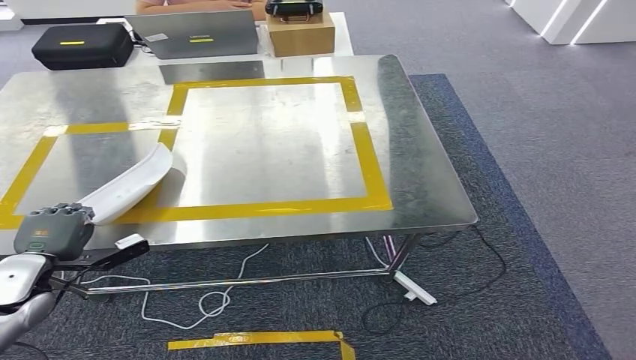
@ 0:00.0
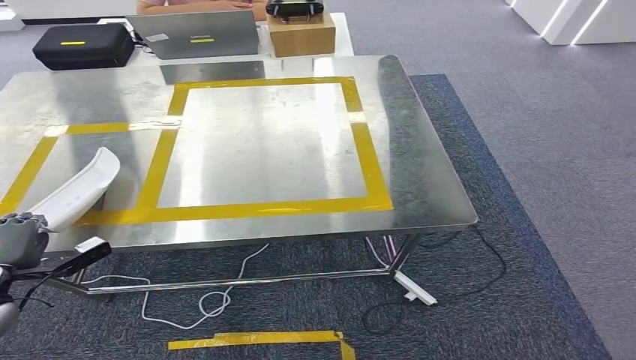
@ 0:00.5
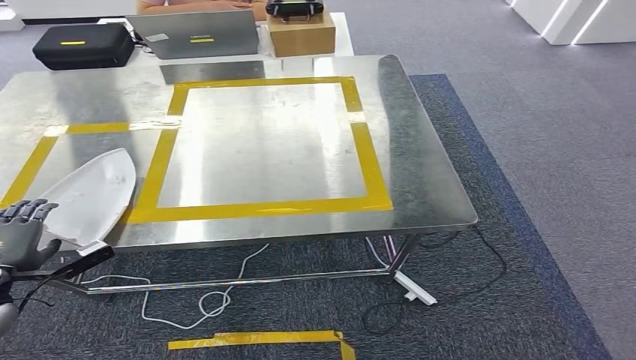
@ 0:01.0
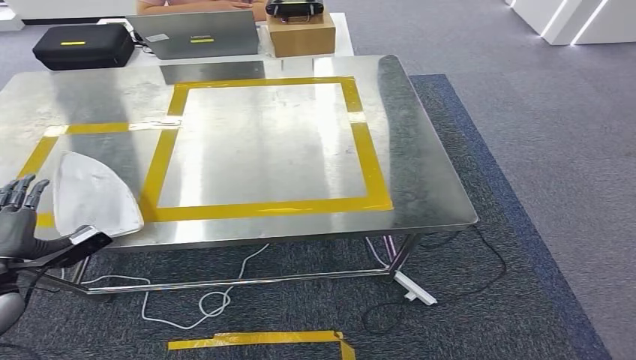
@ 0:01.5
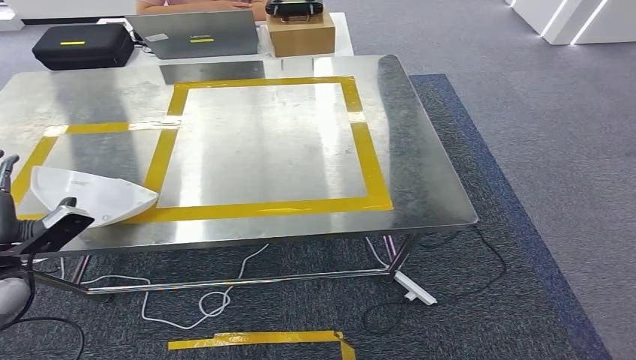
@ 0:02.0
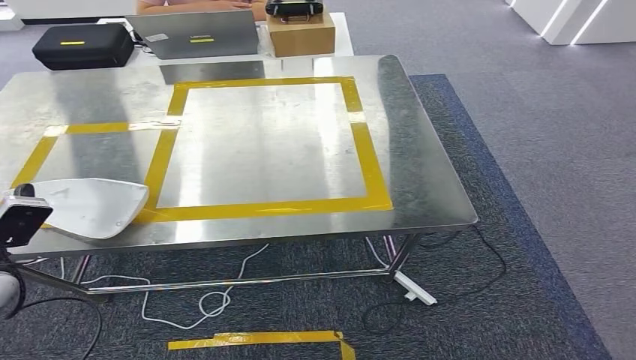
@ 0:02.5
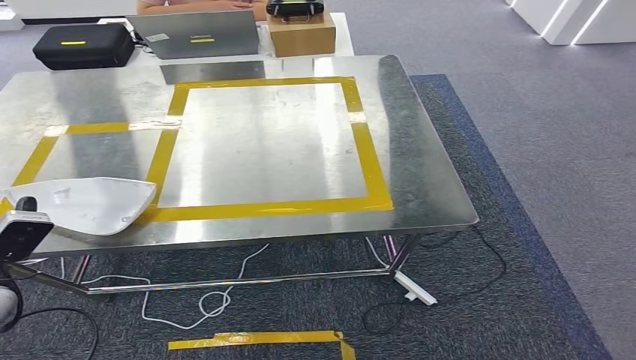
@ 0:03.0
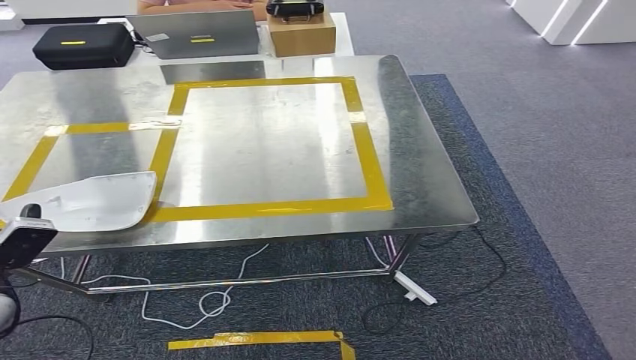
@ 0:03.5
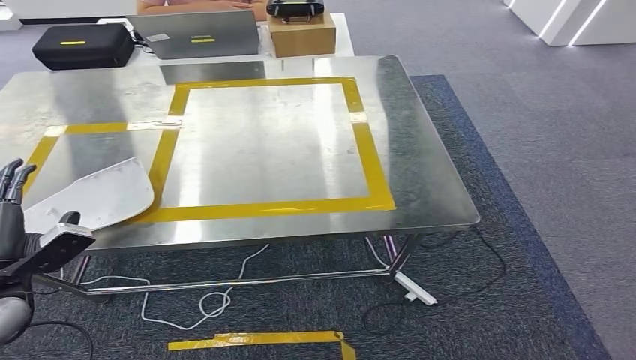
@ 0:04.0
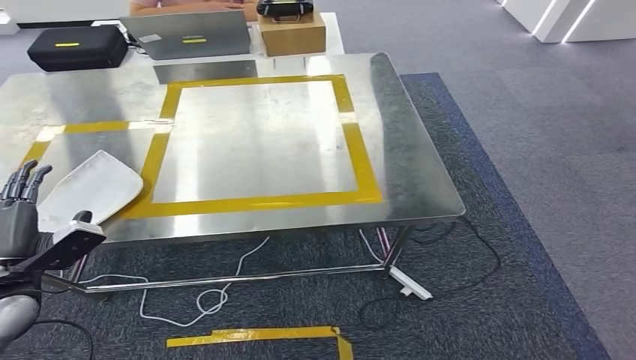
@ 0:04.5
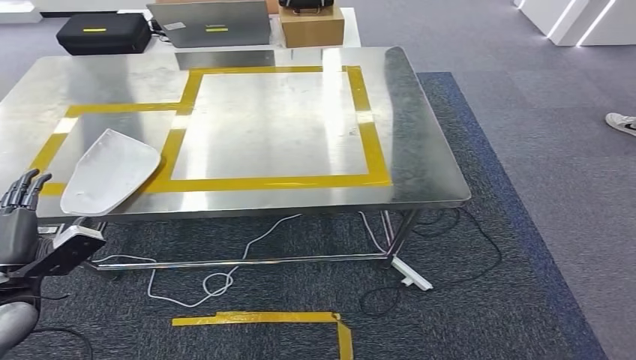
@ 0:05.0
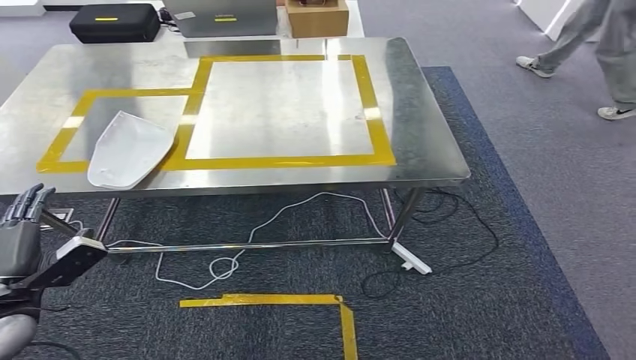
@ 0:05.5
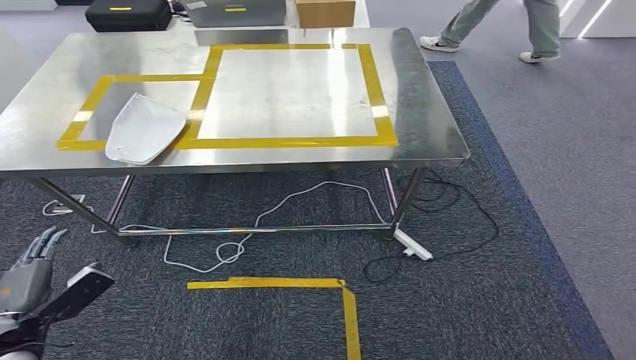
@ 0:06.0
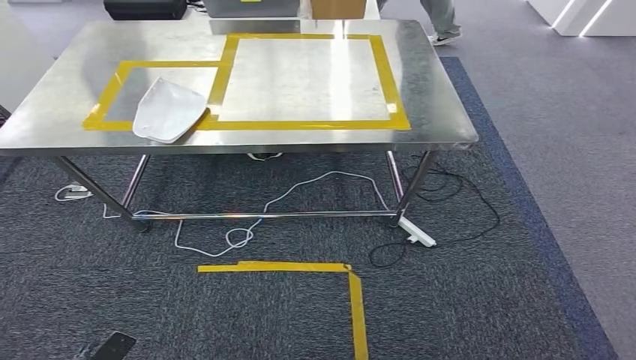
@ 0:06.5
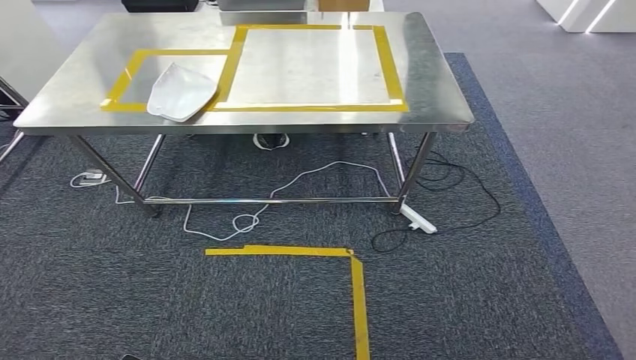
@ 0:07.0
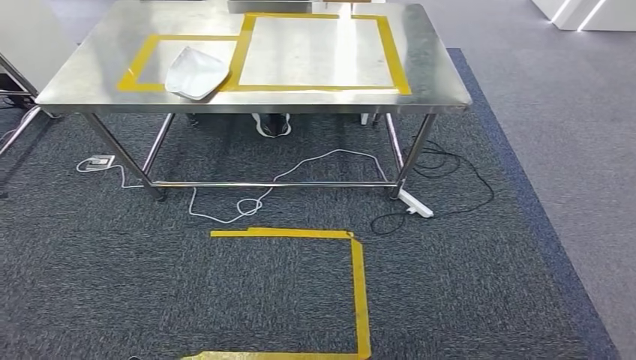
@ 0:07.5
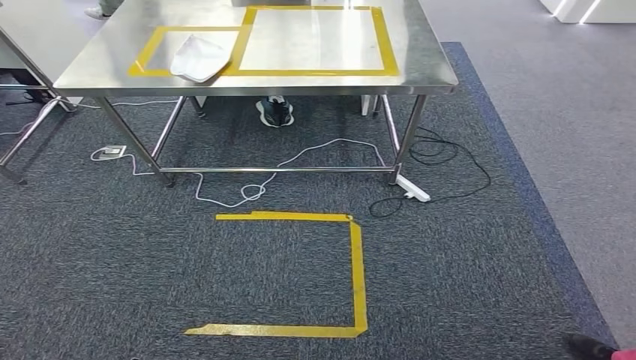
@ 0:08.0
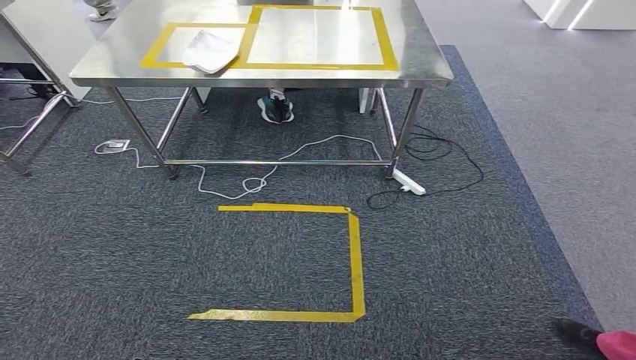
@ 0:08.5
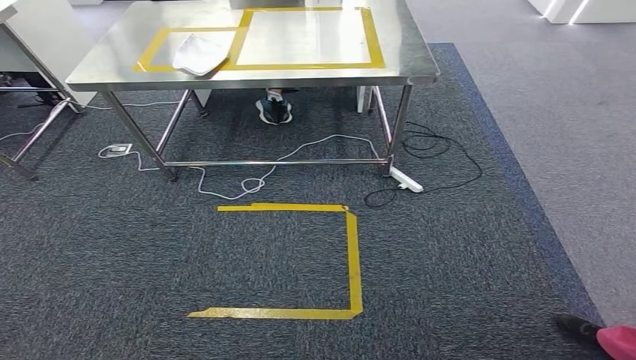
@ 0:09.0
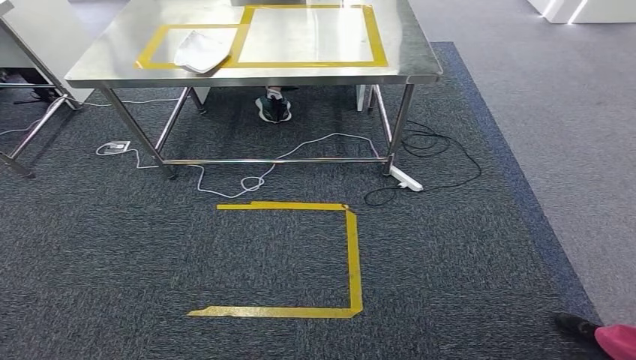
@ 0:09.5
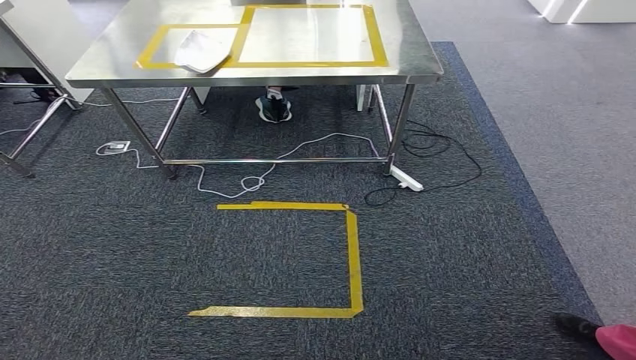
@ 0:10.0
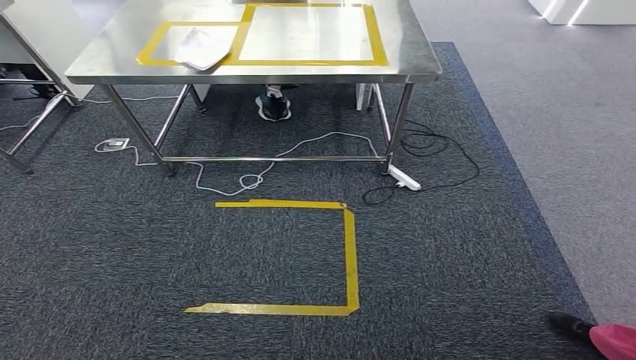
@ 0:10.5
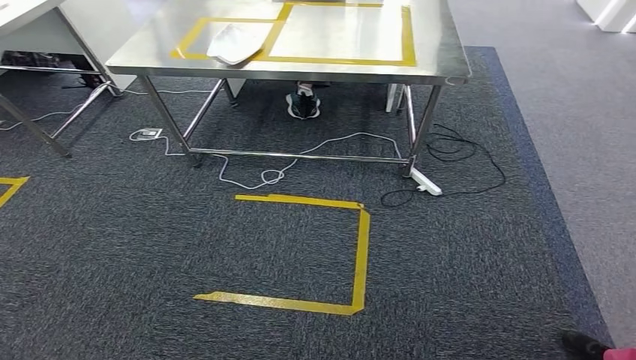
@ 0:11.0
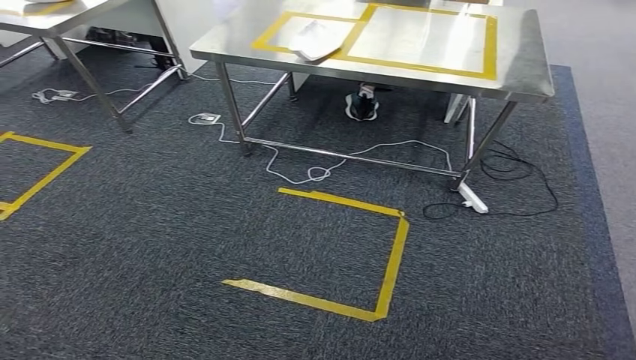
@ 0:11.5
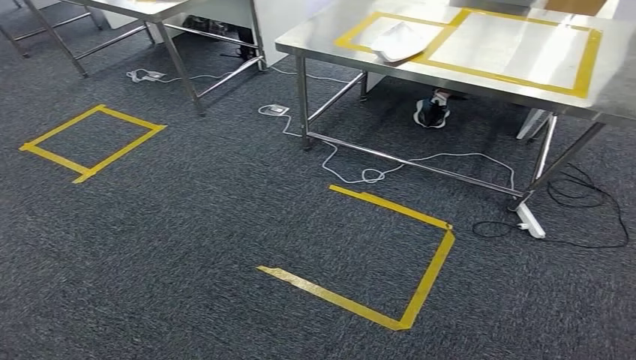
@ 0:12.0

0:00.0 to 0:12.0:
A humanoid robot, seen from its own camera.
Step, 0:00.0 to 0:02.5: Insert the small component into the corresponding slot on the workbench.
0:02.0 to 0:04.0: The hands stay close to where they were, moving slightly.

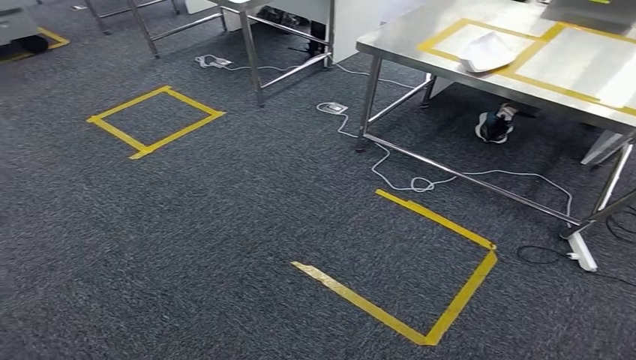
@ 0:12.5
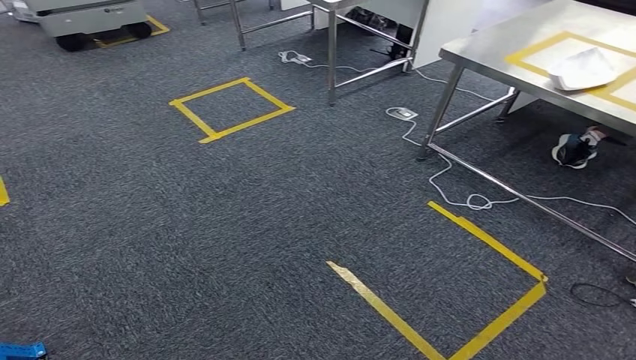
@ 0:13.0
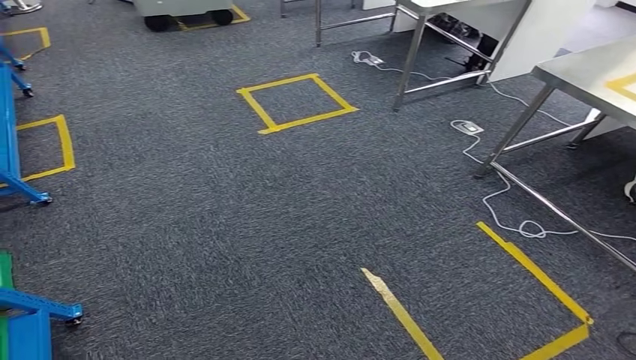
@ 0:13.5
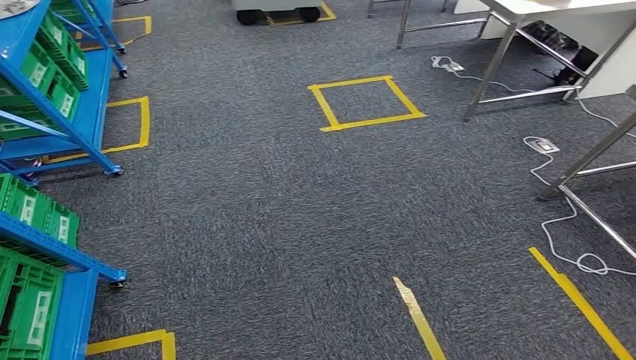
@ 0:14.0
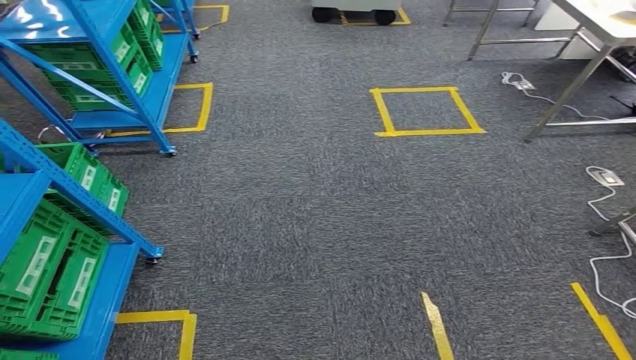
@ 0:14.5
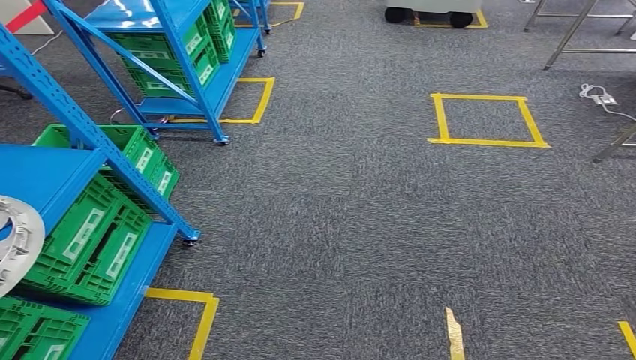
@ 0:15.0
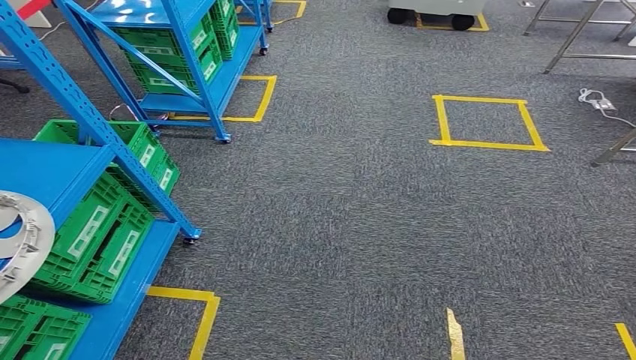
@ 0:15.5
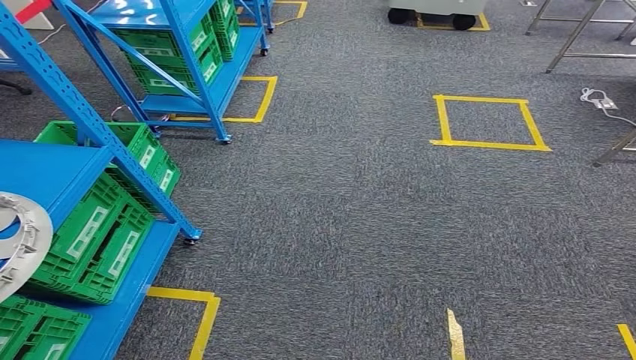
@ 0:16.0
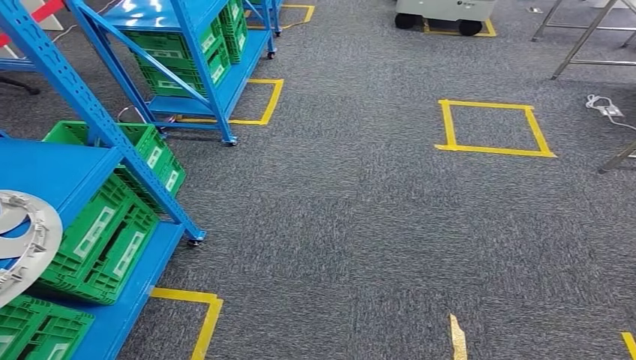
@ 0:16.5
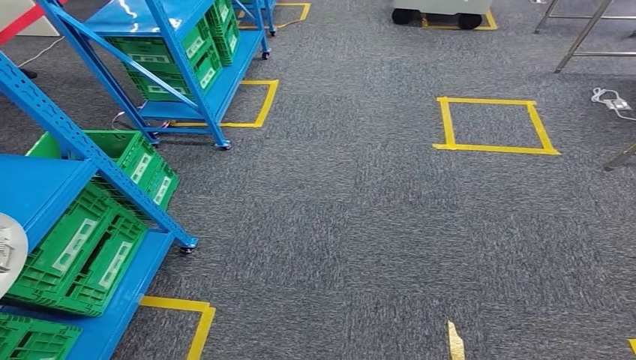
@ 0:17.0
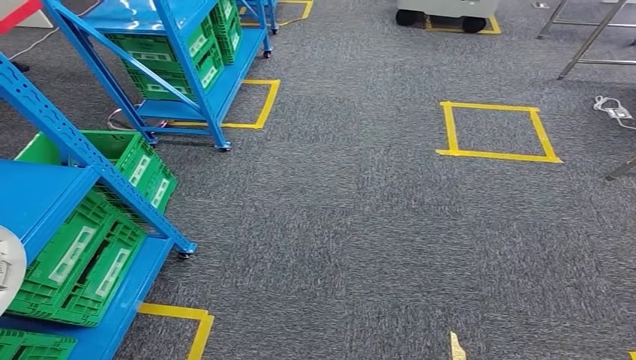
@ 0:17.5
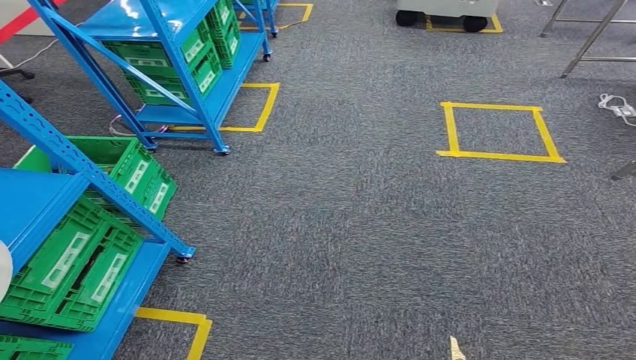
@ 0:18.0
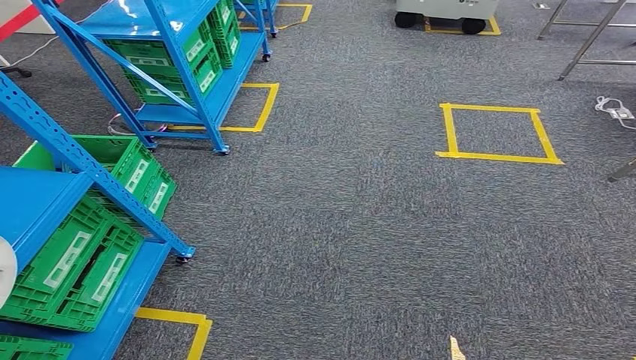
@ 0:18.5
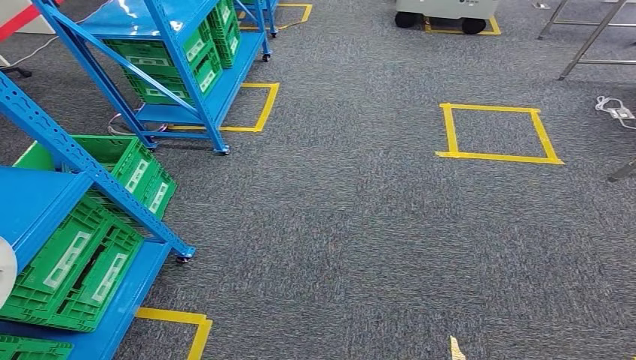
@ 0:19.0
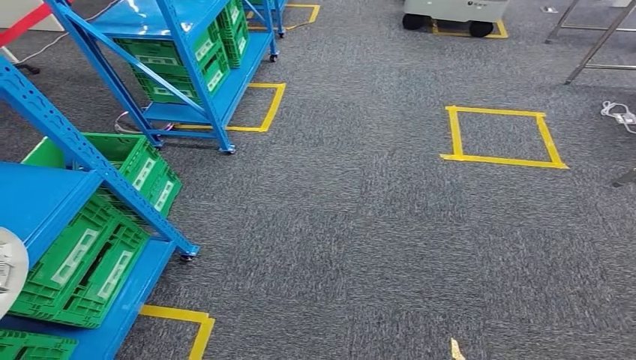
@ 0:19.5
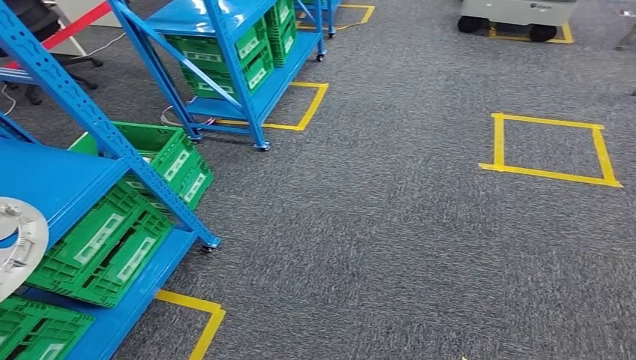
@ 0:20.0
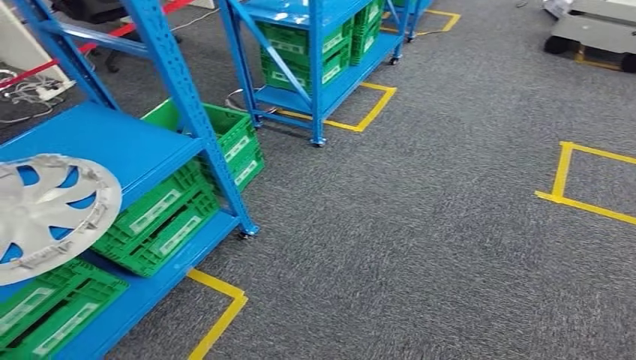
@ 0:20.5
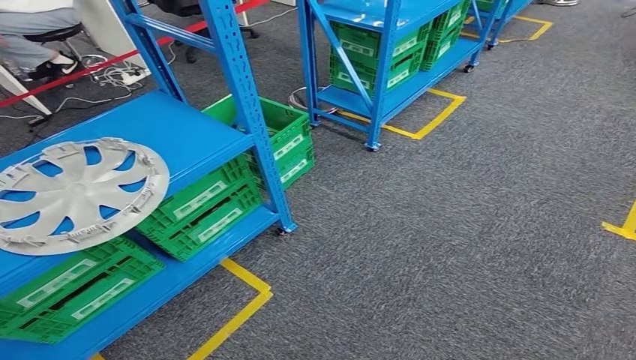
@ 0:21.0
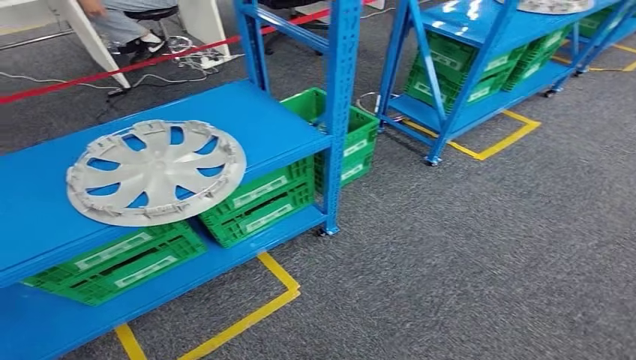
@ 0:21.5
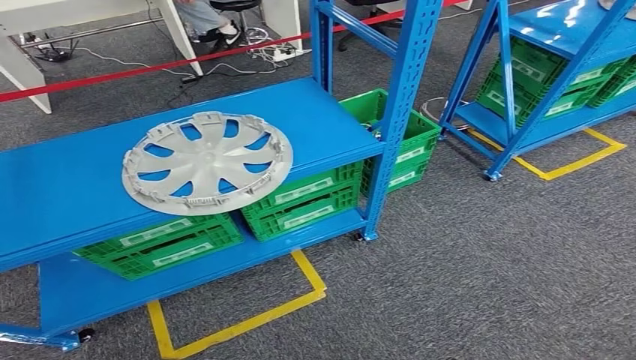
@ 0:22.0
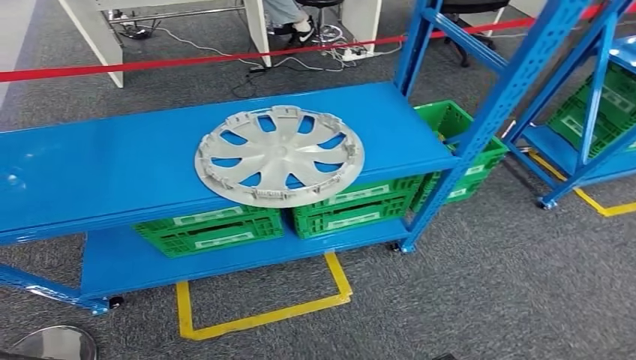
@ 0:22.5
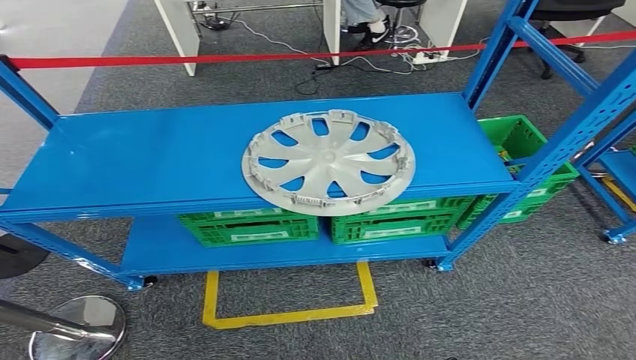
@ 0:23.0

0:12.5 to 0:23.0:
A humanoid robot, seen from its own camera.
Step, 0:12.5 to 0:23.0: Return to the initial position at the workbench.
